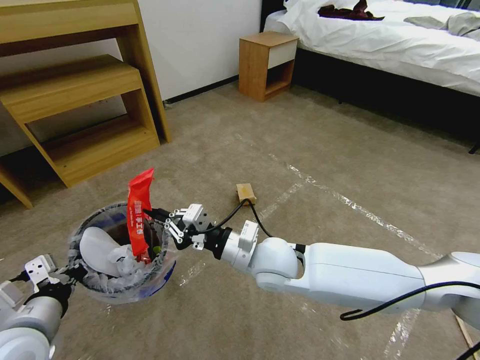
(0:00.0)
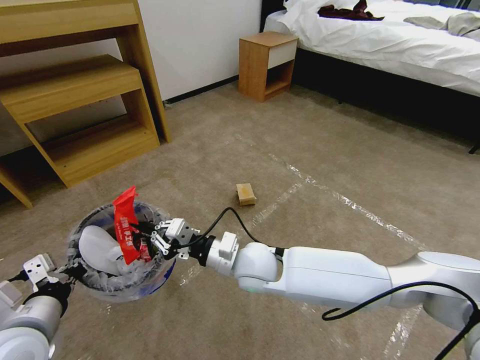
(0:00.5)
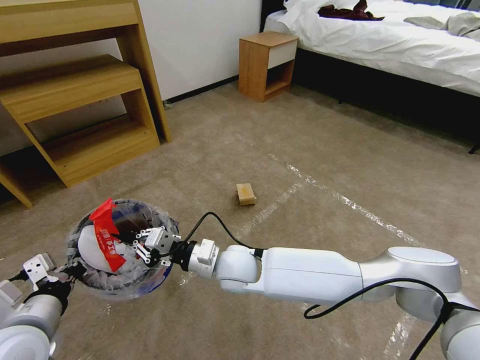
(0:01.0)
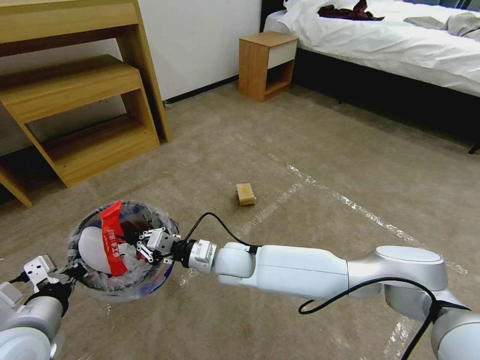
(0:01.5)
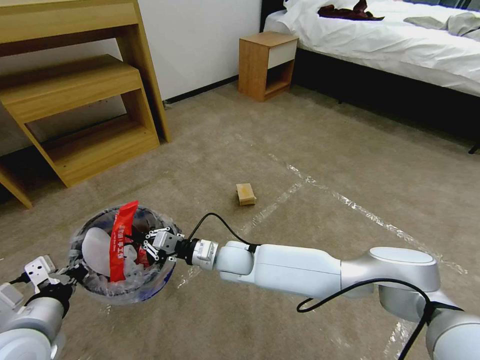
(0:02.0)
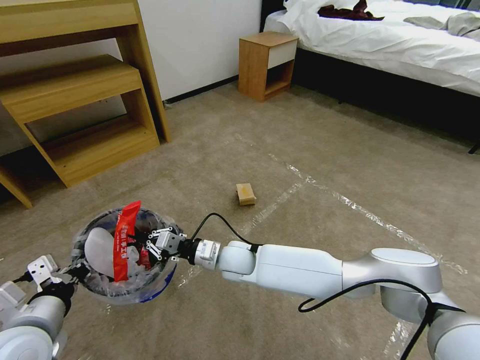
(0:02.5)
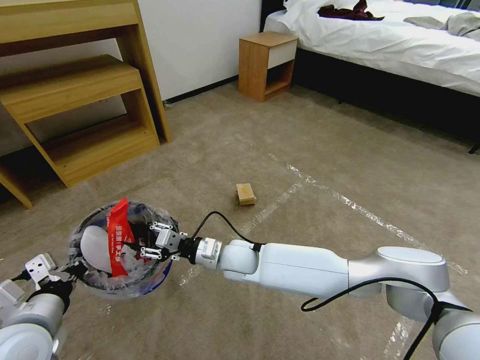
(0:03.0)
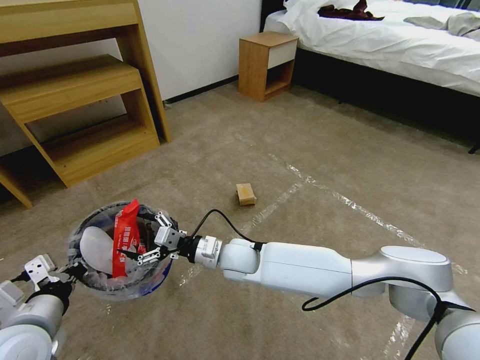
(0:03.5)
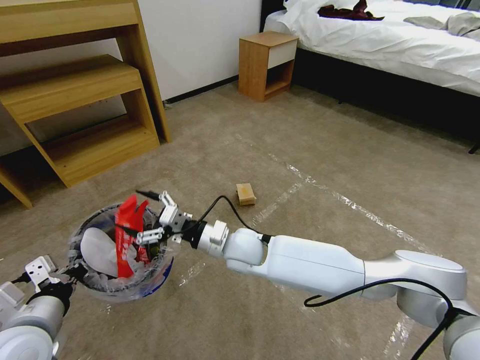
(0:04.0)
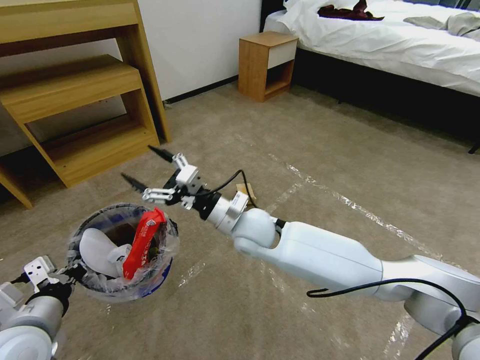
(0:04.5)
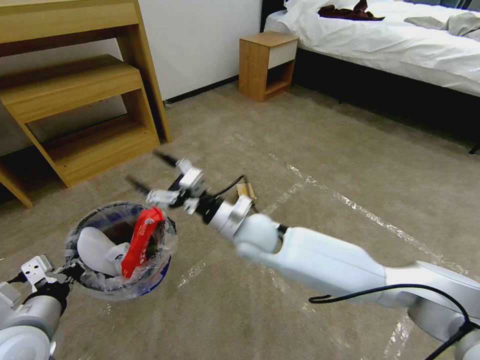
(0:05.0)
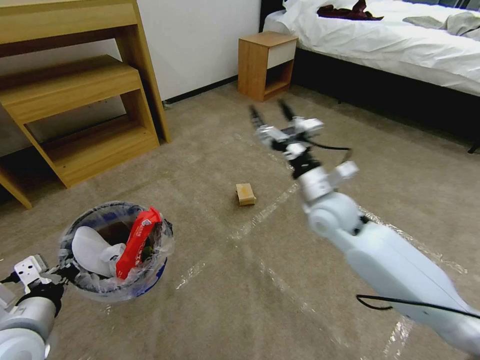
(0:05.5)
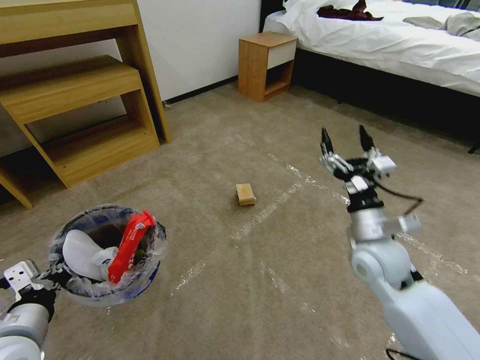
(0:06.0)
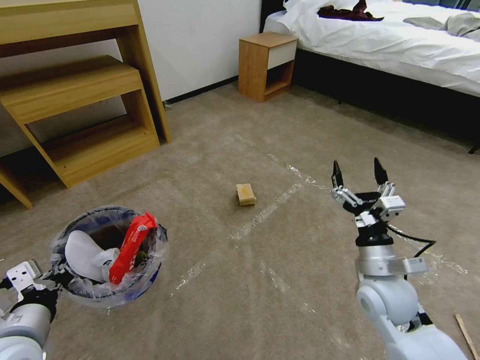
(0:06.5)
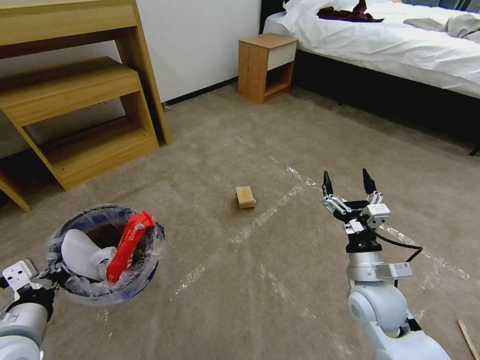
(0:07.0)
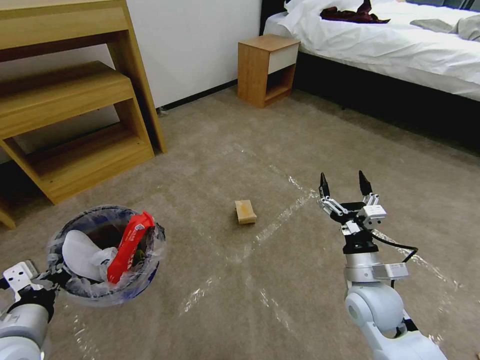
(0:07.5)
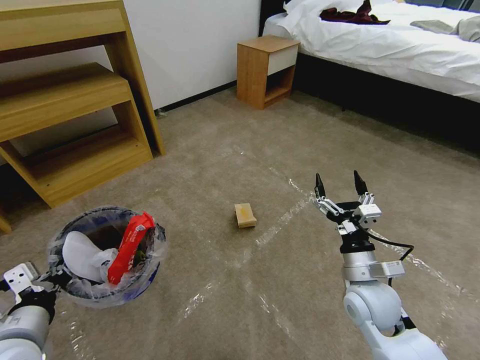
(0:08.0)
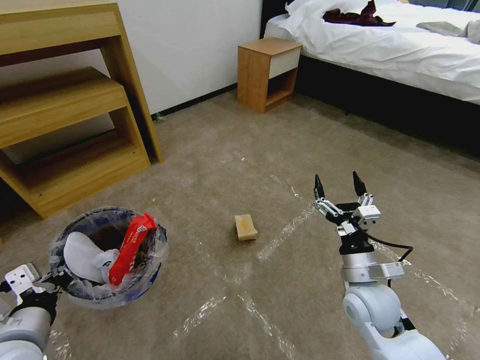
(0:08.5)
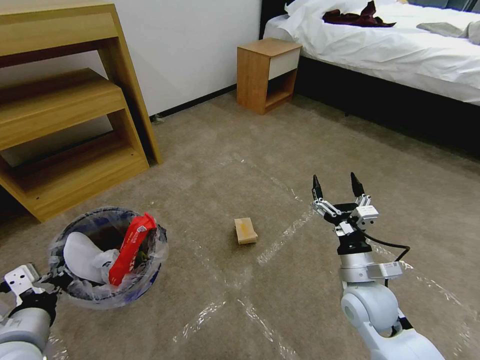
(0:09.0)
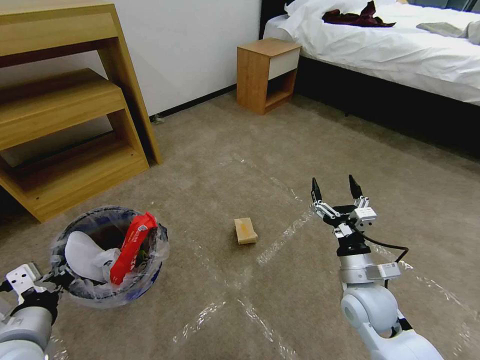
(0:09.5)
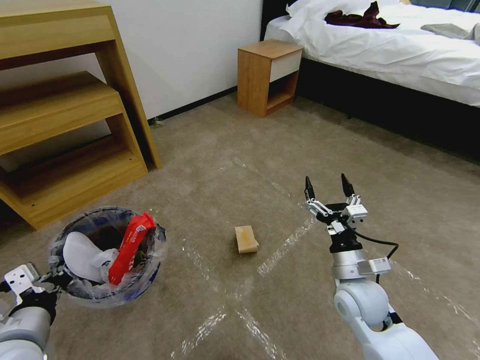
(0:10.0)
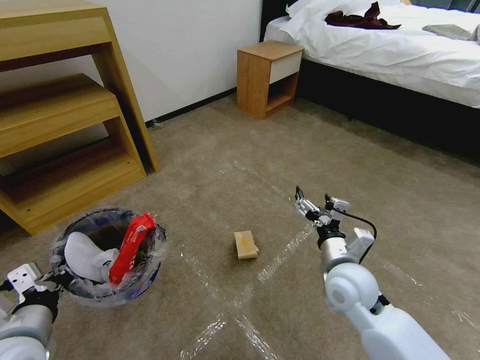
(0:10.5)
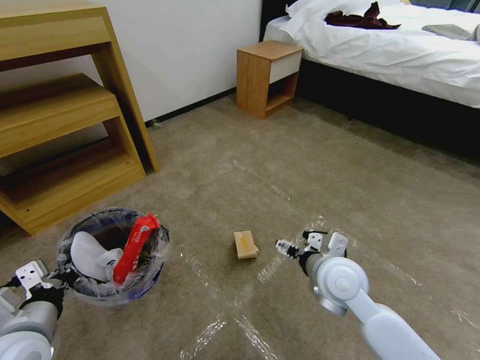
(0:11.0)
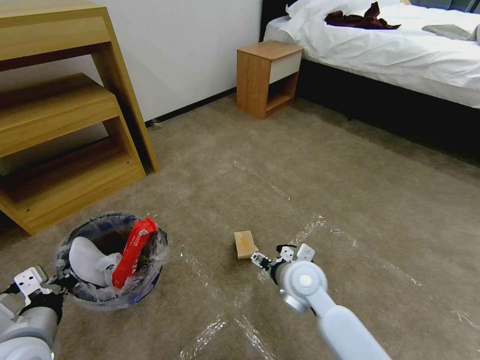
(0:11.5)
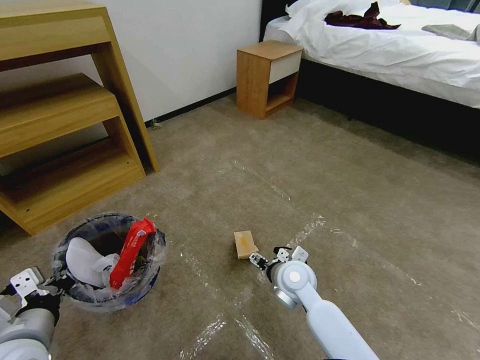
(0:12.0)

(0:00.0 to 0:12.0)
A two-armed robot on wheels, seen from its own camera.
Task of the whole recording: Pick up the trash bin and place the garbage on the floor into it.
0:00.0 - 0:02.0: The right gripper goes approximately 15 cm downward, to the left and forward.
0:02.0 - 0:04.0: The right gripper moves upward, about 5 cm, and opens its fingers.
0:04.0 - 0:06.0: The right gripper goes approximately 25 cm to the right.
0:06.0 - 0:08.0: The right gripper travels downward and backward by some 10 cm.
0:10.0 - 0:12.0: The right gripper goes roughly 15 cm to the left and forward.

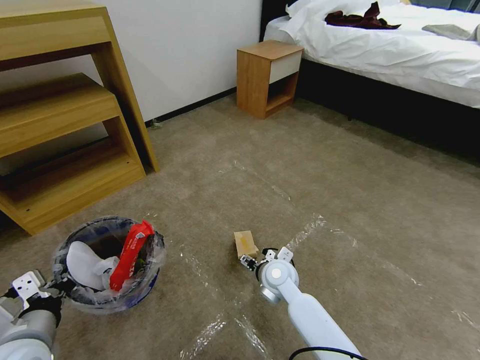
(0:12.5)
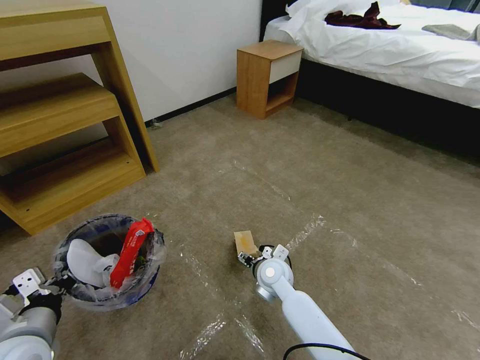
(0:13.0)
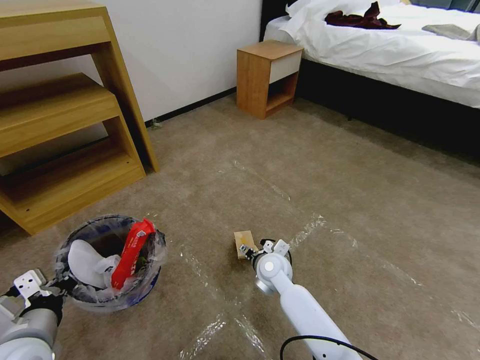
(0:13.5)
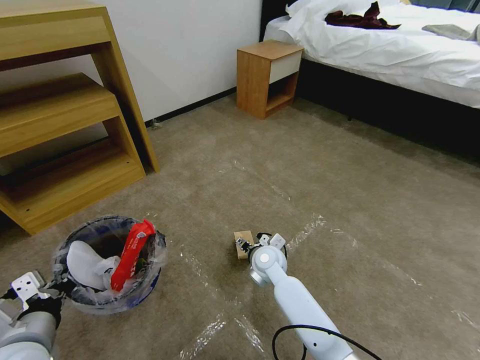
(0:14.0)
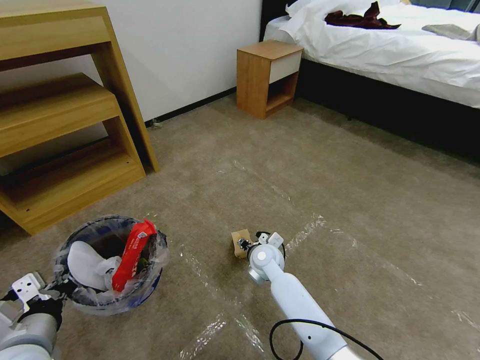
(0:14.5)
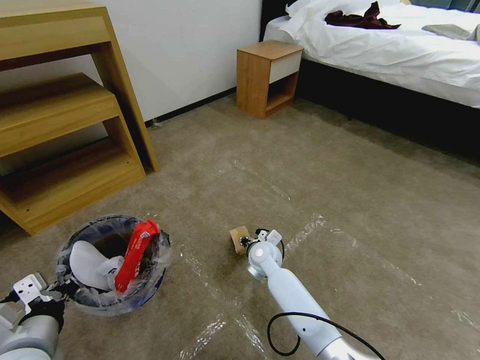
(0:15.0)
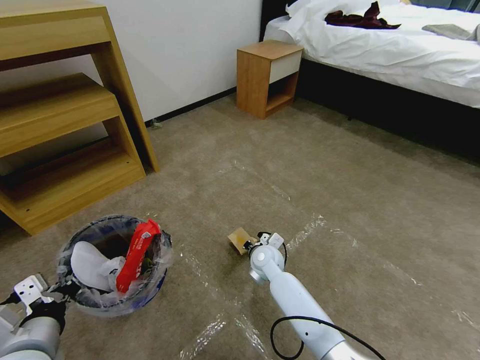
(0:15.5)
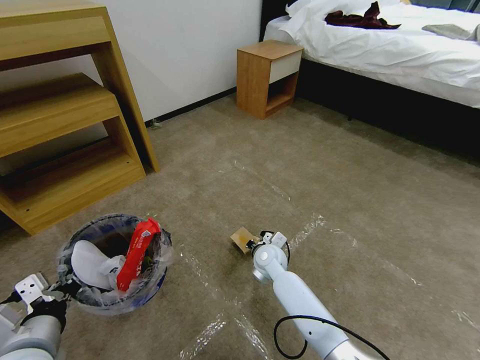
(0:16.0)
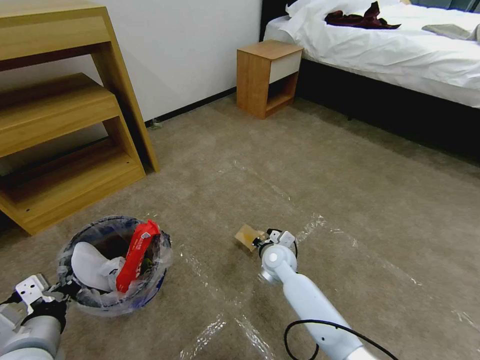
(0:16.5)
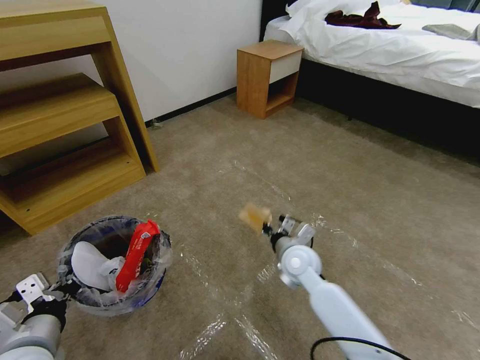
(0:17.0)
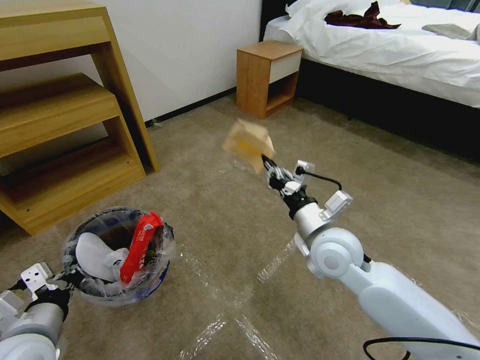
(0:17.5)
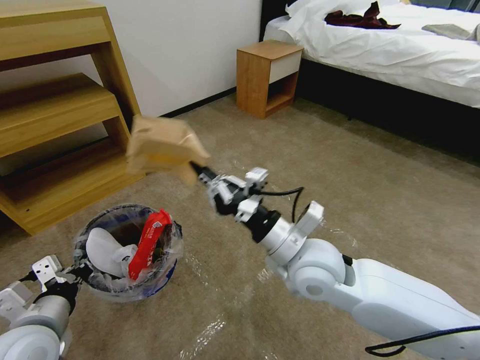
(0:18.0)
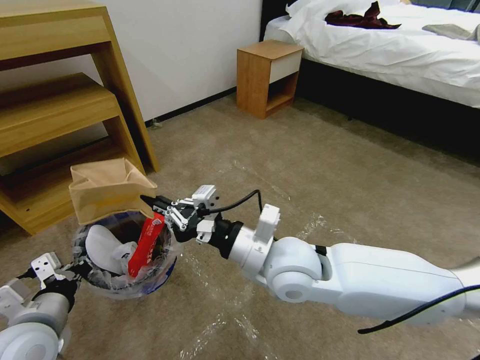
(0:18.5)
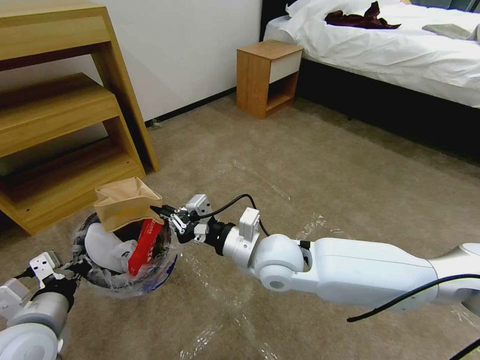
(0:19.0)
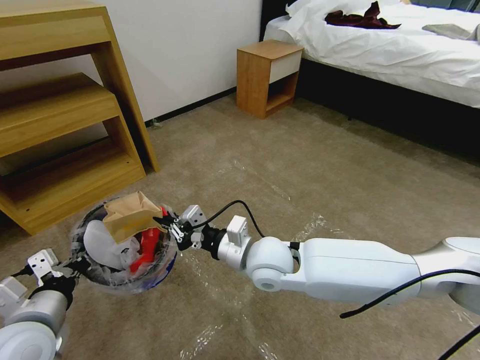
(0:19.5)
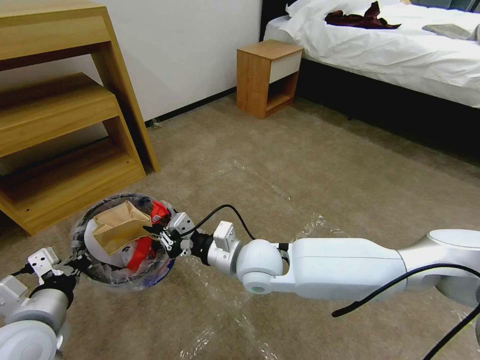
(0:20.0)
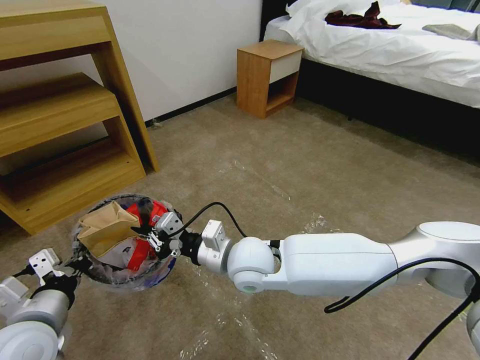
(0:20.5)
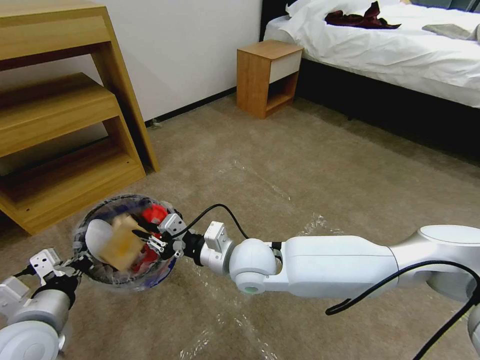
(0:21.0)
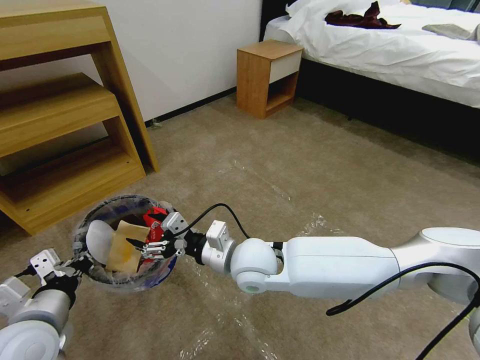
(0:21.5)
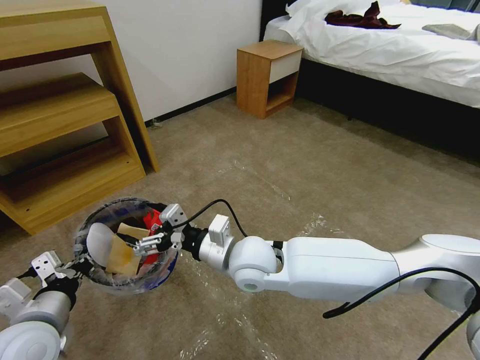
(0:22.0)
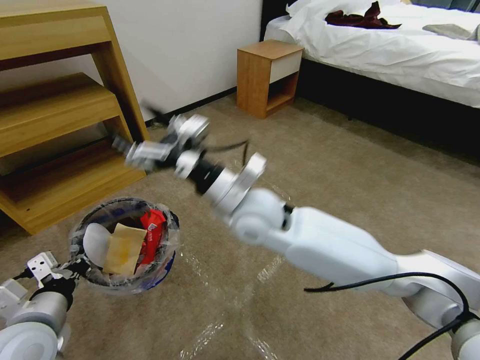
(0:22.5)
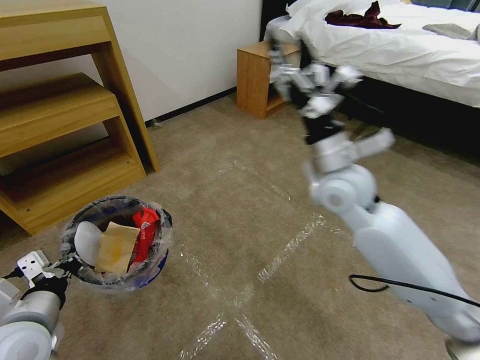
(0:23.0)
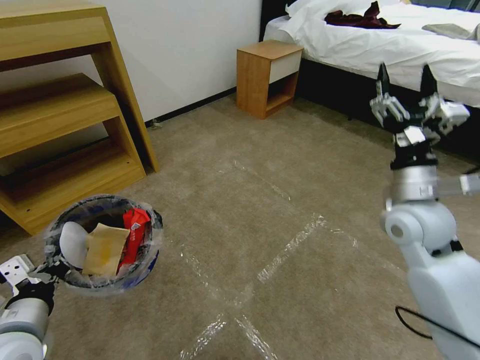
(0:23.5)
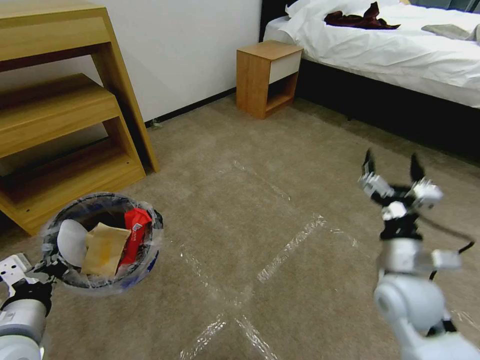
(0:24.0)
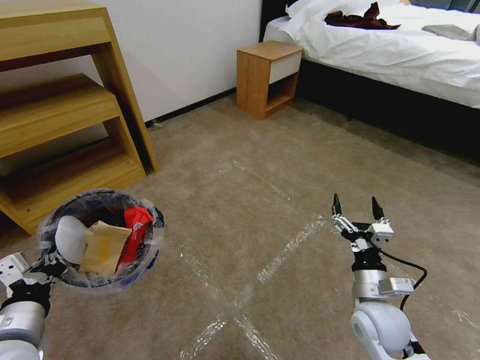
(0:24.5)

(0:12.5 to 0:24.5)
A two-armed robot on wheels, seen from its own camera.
Task of the whole recording: Pick up the trash bin and place the garbage on the floor into it.
0:12.5 - 0:14.5: The right gripper travels forward by some 5 cm.
0:14.5 - 0:16.5: The right gripper closes up.
0:16.5 - 0:18.5: The right gripper travels upward and backward by some 25 cm.
0:18.5 - 0:20.5: The right gripper shifts approximately 10 cm to the left and downward.
0:20.5 - 0:22.5: The right gripper travels upward by roughly 10 cm, and opens.
0:22.5 - 0:24.5: The right gripper heads to the right, downward and backward, covering some 35 cm.

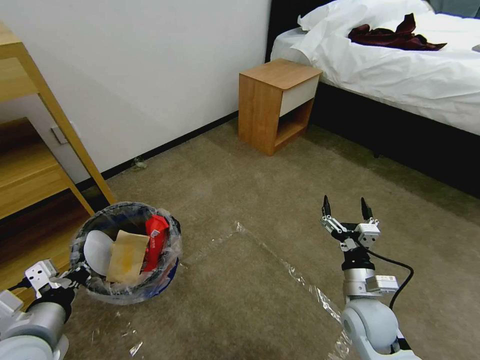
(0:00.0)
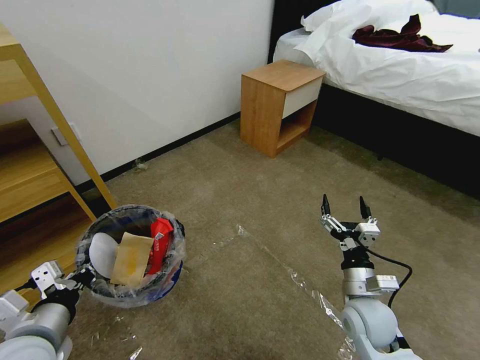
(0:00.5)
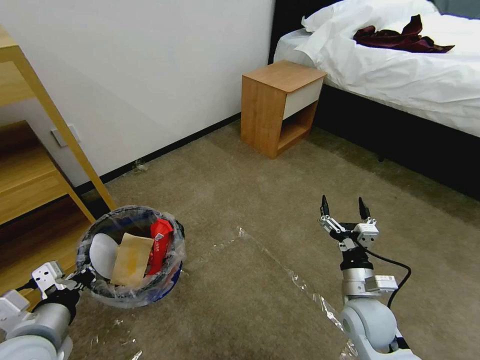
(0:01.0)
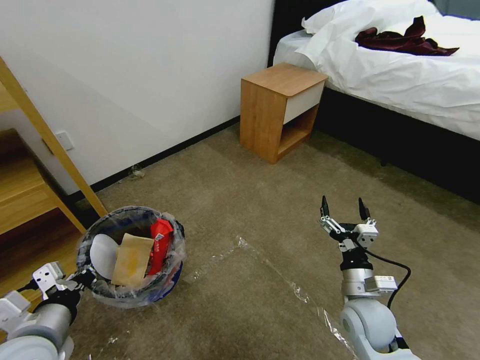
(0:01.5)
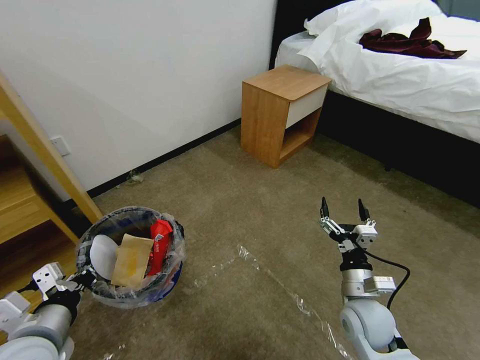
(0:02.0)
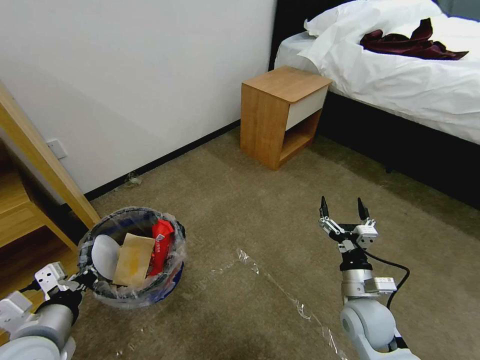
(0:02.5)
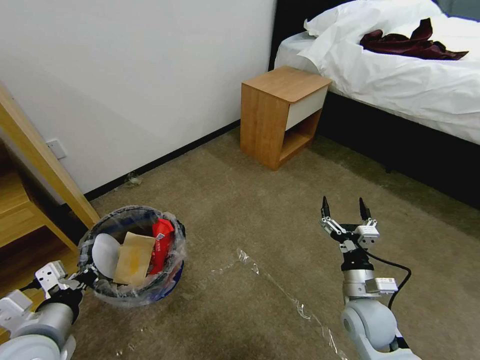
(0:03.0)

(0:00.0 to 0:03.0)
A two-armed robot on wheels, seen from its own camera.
Task of the whole recording: Pick up the trash bin and place the garbage on the floor into it.
0:00.0 - 0:03.0: Neither gripper changes place.
